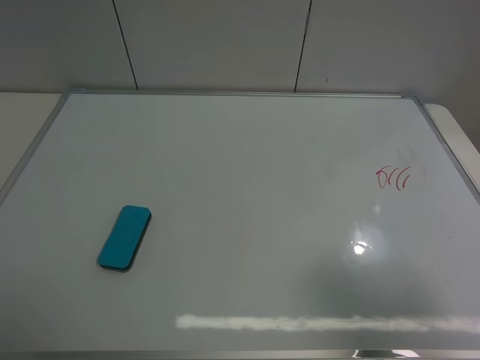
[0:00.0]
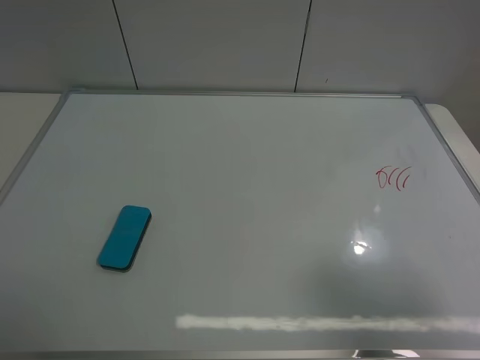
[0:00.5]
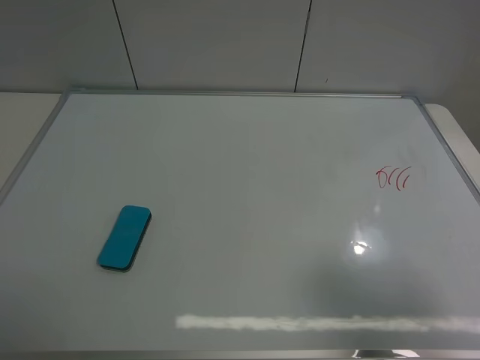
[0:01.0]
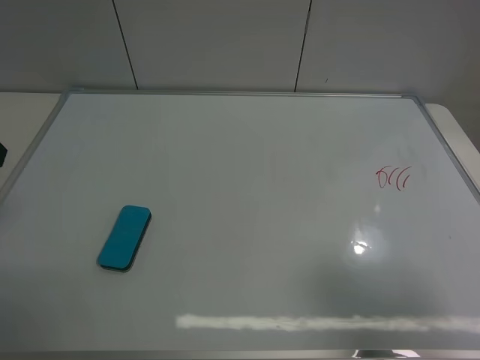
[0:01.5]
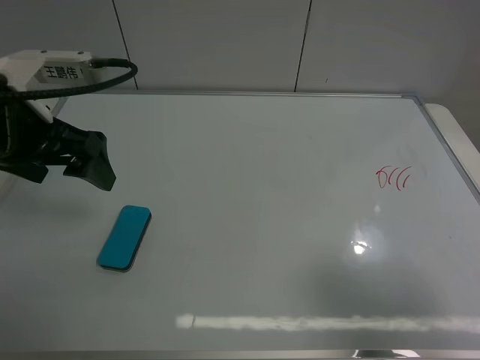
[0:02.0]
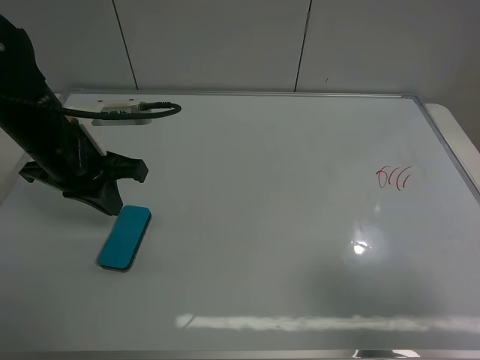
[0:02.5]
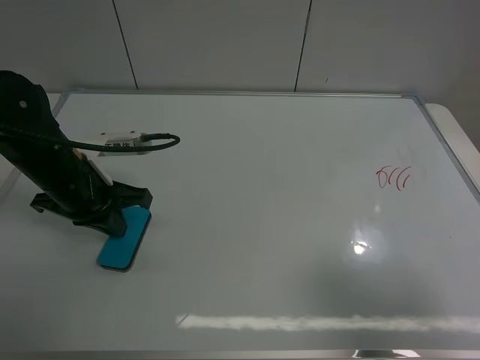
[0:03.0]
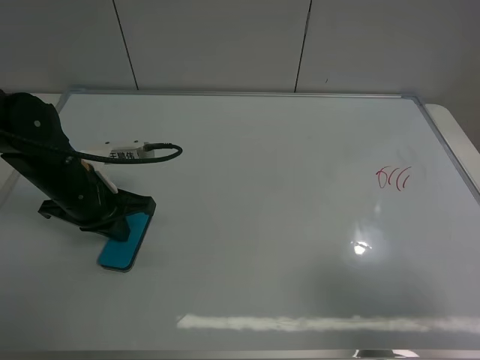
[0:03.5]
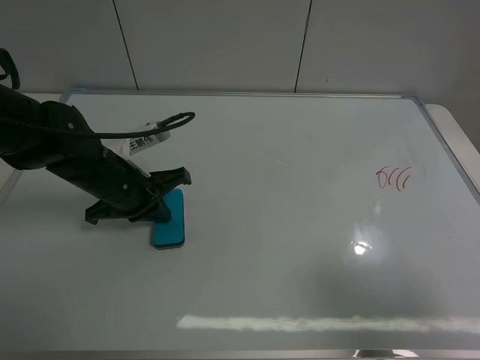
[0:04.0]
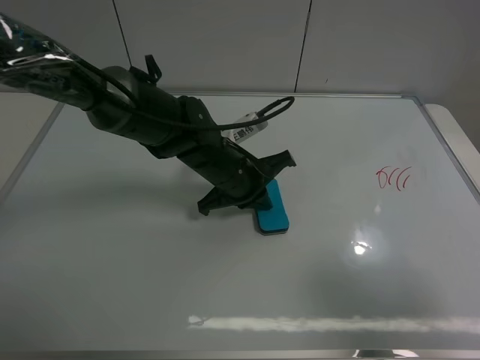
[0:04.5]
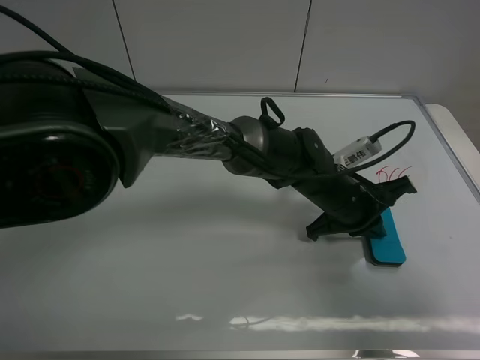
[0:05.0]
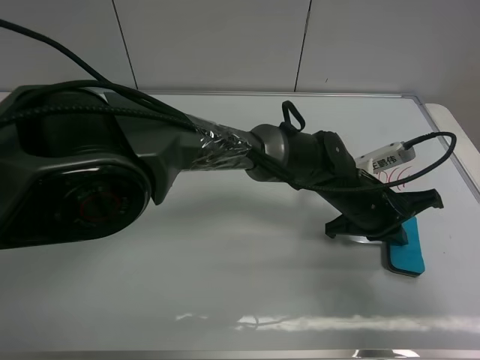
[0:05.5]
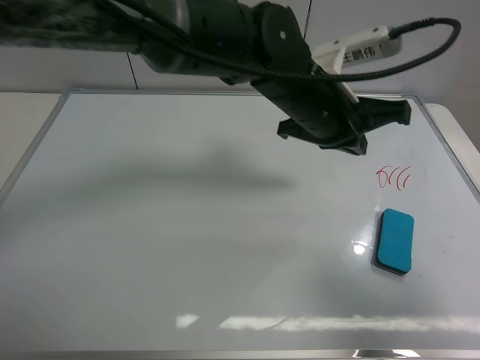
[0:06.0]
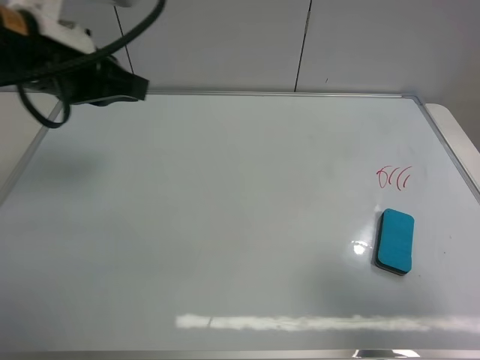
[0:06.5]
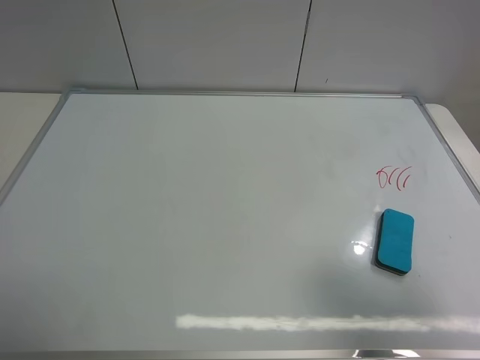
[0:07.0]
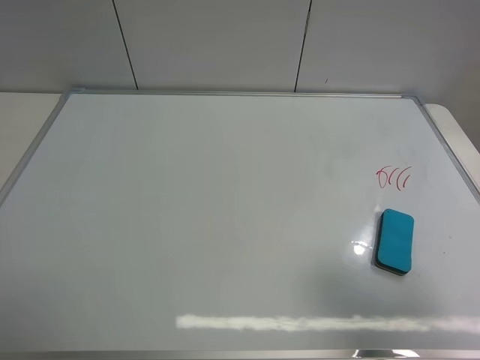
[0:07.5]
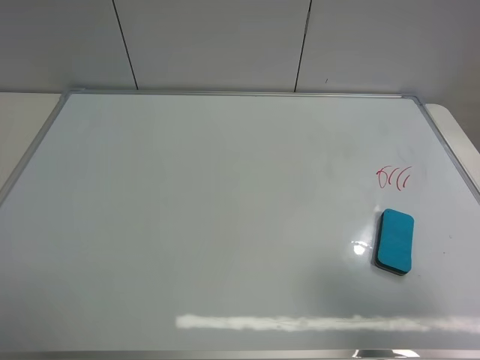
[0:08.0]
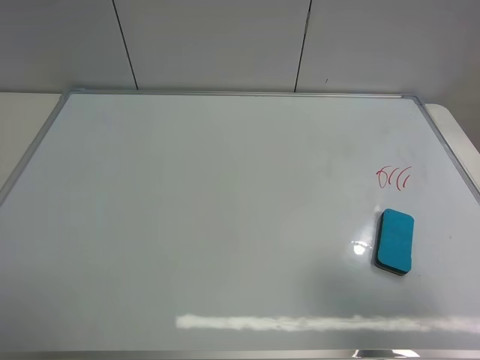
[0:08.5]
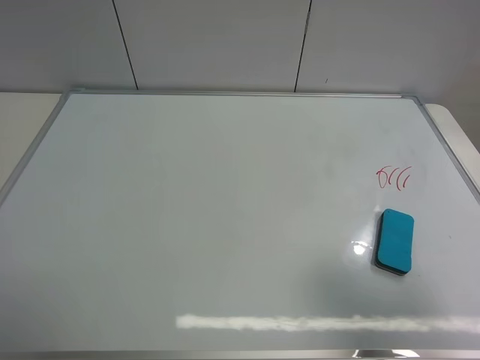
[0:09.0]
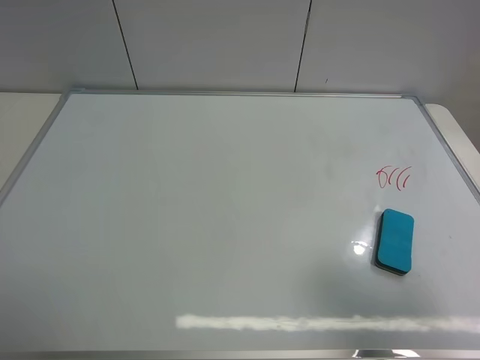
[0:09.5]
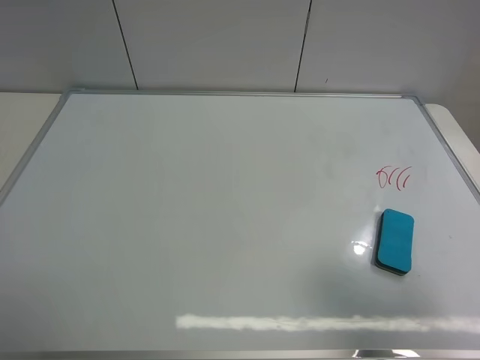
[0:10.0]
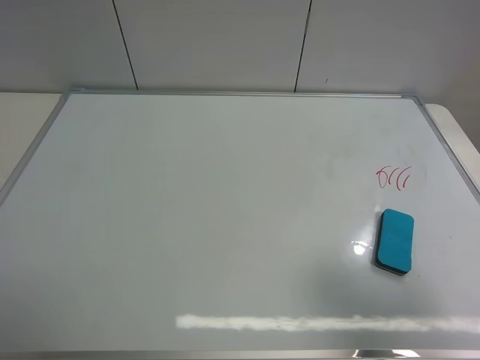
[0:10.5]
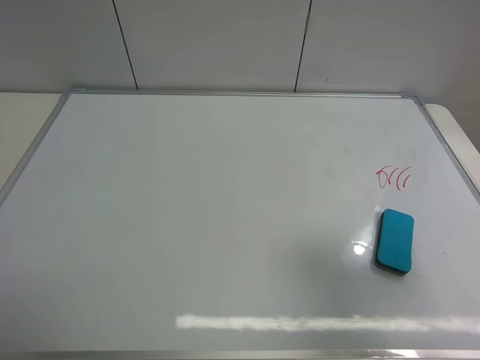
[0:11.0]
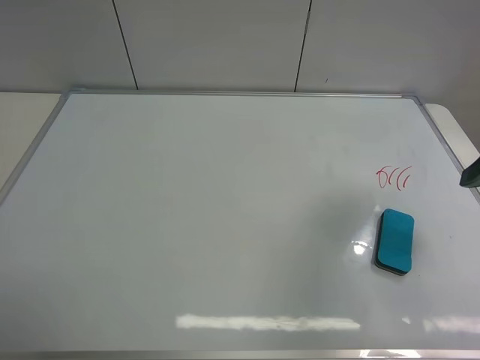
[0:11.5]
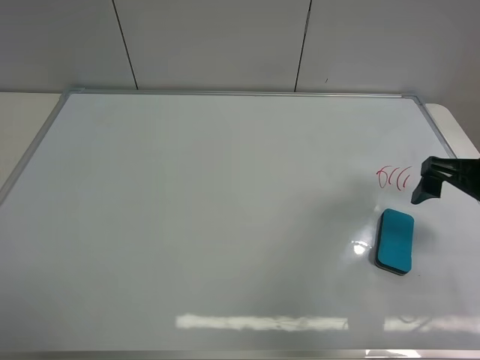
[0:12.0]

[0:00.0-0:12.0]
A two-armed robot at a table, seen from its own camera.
Task of the whole recording: use the left gripper to place the eraser in the right, use the right gripper to pick up the eraser, wipe the notes on the whiteboard clean, and then put it down.
Step, 0:00.0 to 0:05.5: Move the board eraser to the right of the whiteboard with left gripper.
0:00.0 to 0:02.0: The left gripper travels forward and to the right by roughly 25 cm.
0:02.0 to 0:04.0: The left gripper travels downward by some 15 cm, and closes its fingers.
0:04.0 to 0:06.0: The left gripper travels to the right and upward by about 25 cm.
0:06.0 to 0:08.0: The left gripper heads to the left and backward, covering some 50 cm, and opens its fingers.
0:08.0 to 0:10.0: Both grippers stay put.
0:10.0 to 0:12.0: The right gripper shifts roughly 20 cm forward.

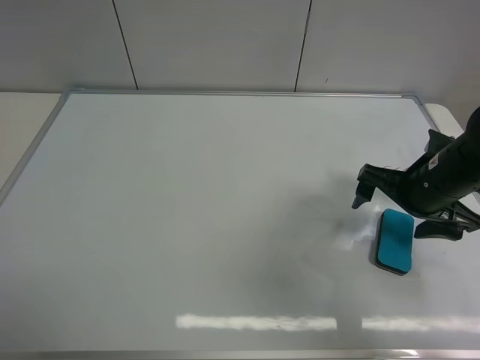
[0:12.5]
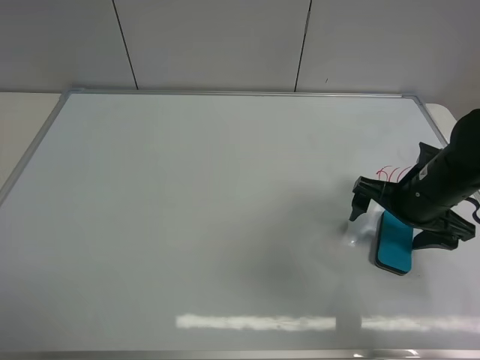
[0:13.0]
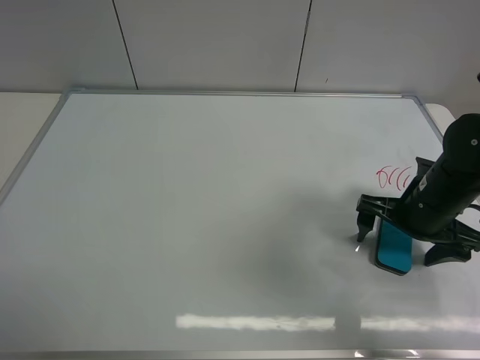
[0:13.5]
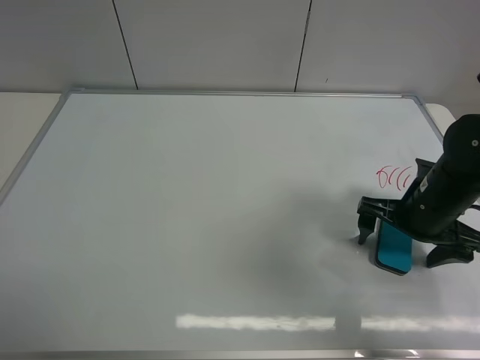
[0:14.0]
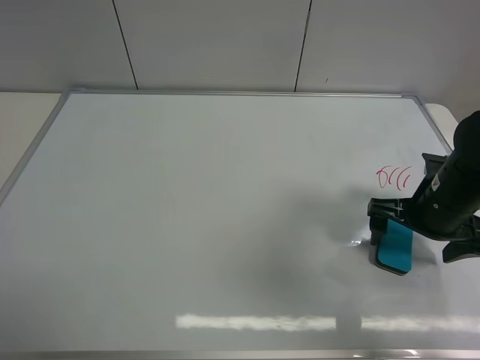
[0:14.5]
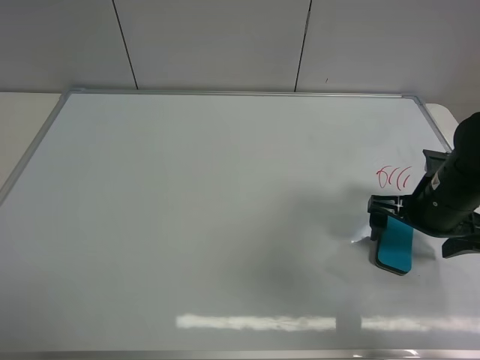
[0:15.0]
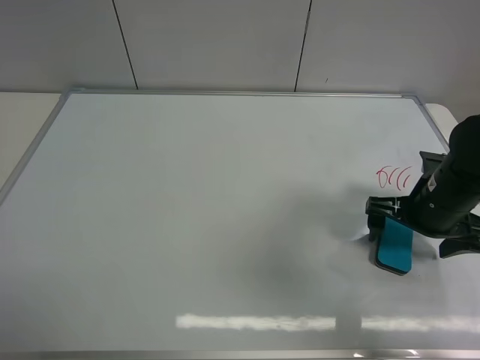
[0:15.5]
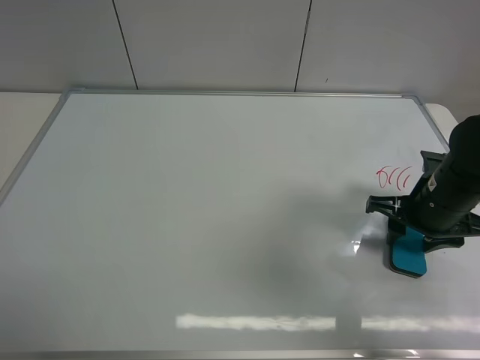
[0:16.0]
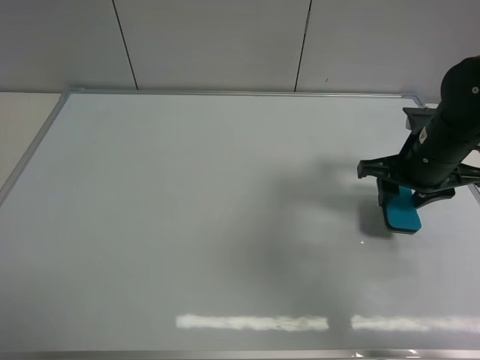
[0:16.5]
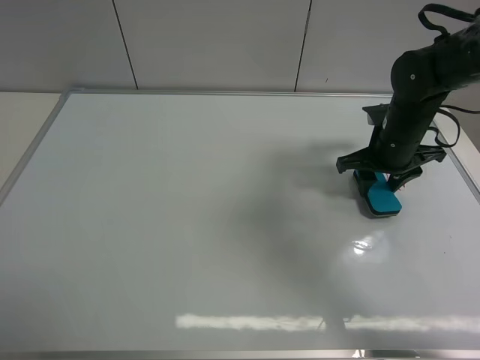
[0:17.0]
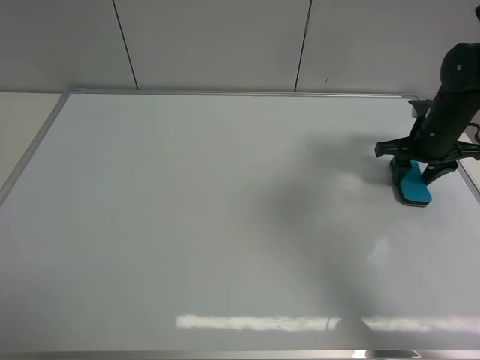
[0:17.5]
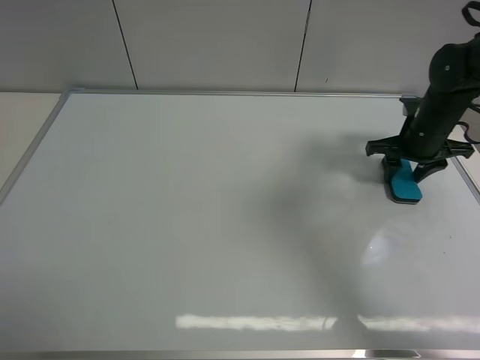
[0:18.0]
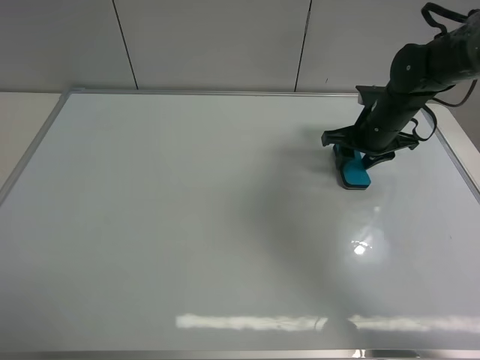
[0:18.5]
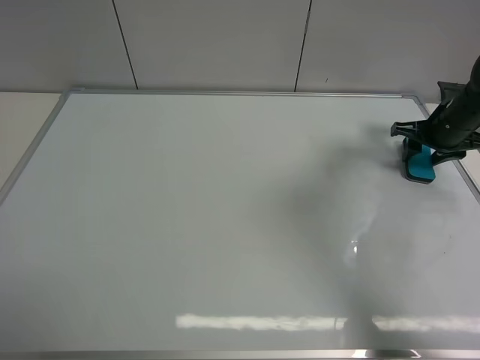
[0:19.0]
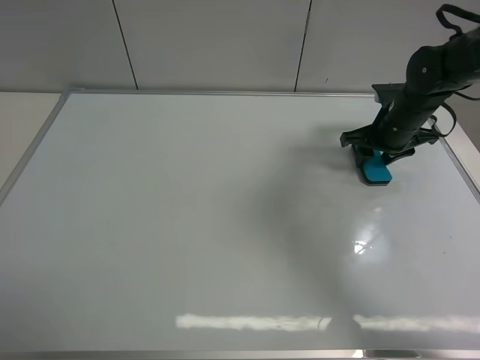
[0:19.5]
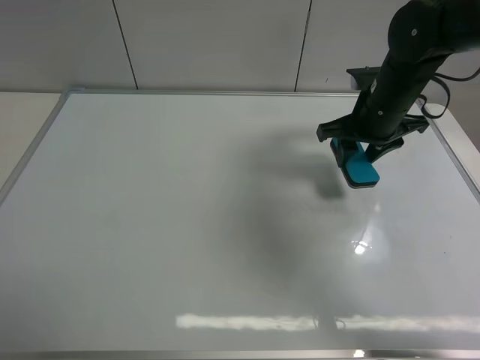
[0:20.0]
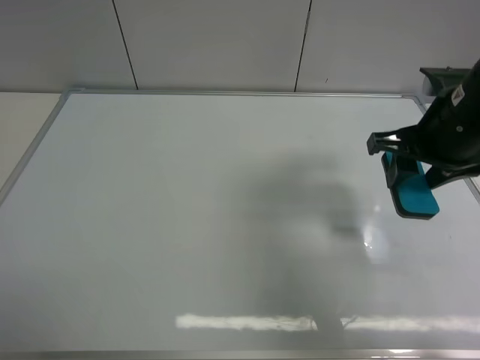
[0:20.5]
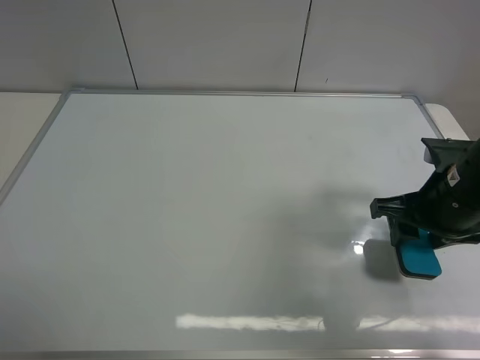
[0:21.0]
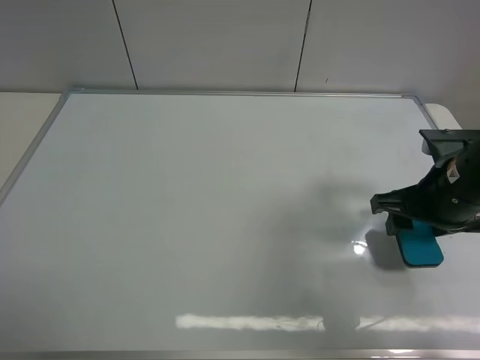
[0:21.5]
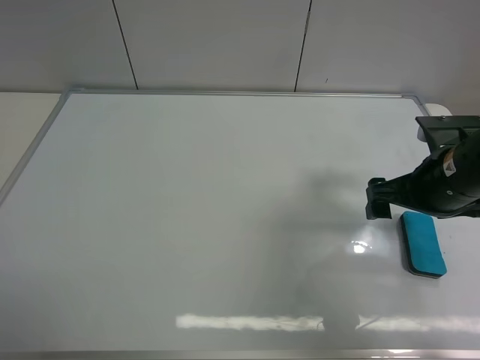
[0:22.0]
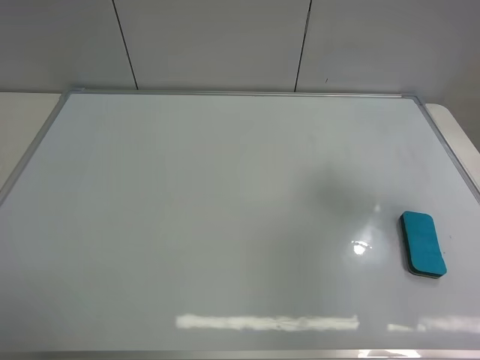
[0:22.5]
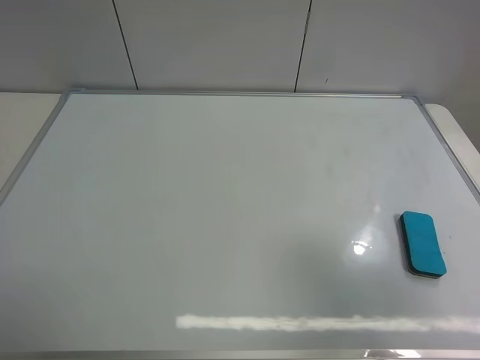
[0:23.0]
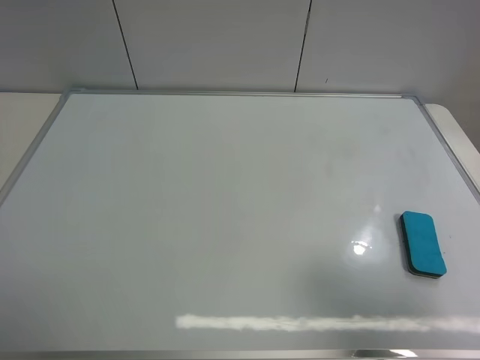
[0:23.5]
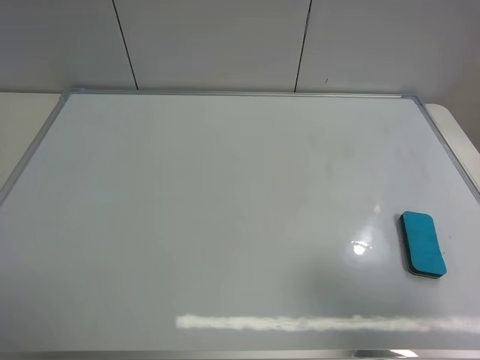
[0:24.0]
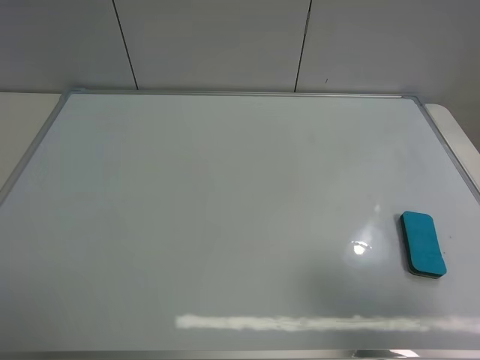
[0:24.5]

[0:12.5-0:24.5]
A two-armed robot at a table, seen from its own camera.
Task of the whole recording: use the left gripper to place the eraser in the right, use the right gripper to pick up the eraser, wipe the notes on the whiteboard clean, and then put it down.
Step, 0:12.5 to 0:16.0: Pick up the board eraser with right gripper.
Step, 0:16.5 to 0:19.5: Wipe off the writing on the board with right gripper.
Step, 0:20.0 to 0:21.5: Place the board eraser on the right side of board with right gripper.
0:12.5 to 0:14.5: The grippers move only a little.
0:14.5 to 0:16.5: The right gripper moves about 5 cm, and closes.
0:16.5 to 0:18.5: The right gripper shifts approximately 10 cm forward.
0:18.5 to 0:20.5: The right gripper travels backward and upward by about 15 cm, and travels to the right and back again, roughly 15 cm each way.
0:20.5 to 0:22.5: The right gripper shifts about 15 cm to the right, upward and backward, and opens its fingers.
0:22.5 to 0:24.5: The right gripper heads backward, covering approximately 15 cm.
